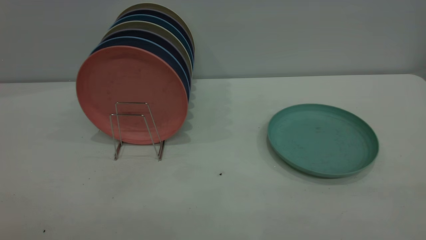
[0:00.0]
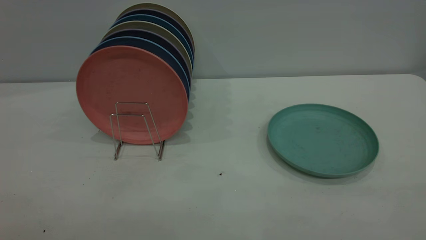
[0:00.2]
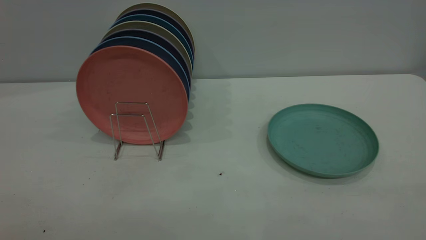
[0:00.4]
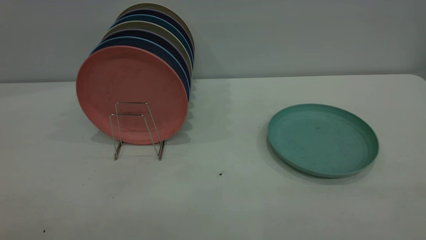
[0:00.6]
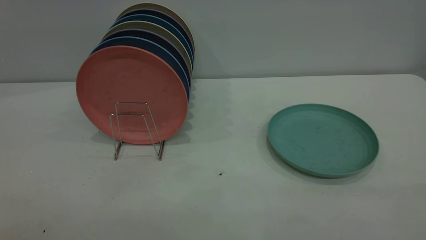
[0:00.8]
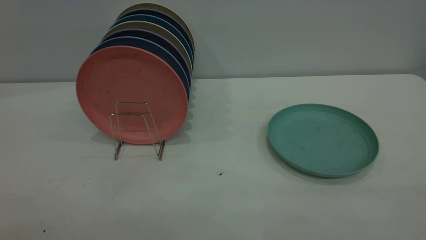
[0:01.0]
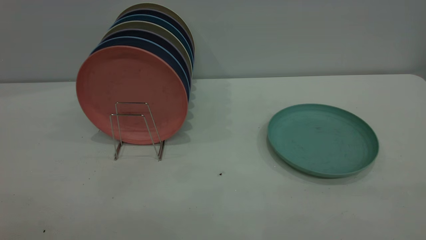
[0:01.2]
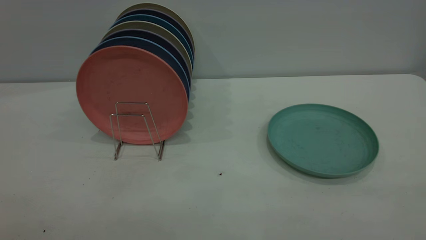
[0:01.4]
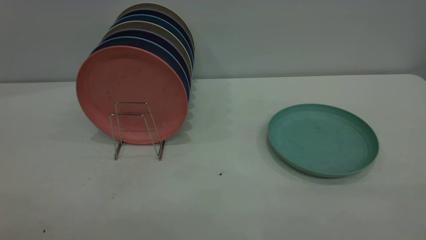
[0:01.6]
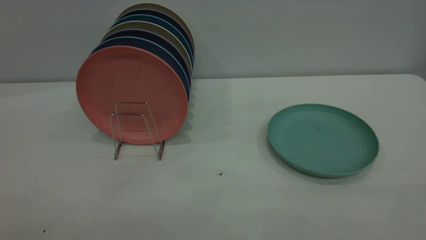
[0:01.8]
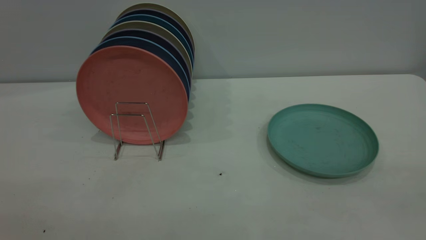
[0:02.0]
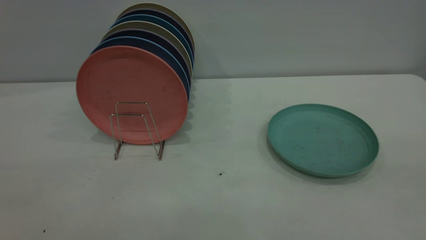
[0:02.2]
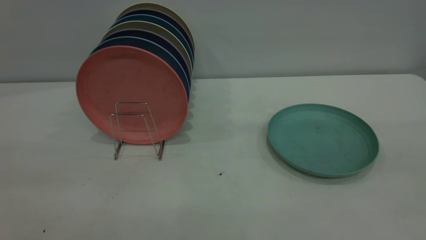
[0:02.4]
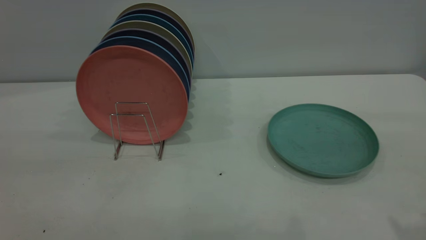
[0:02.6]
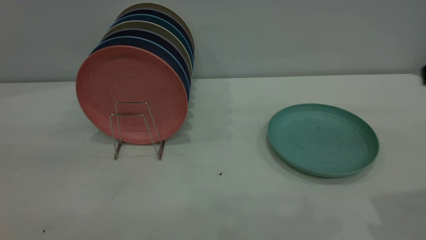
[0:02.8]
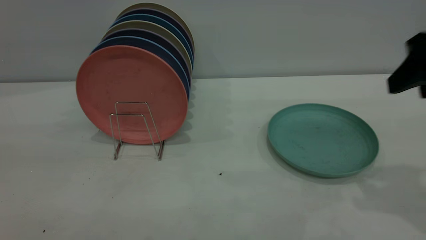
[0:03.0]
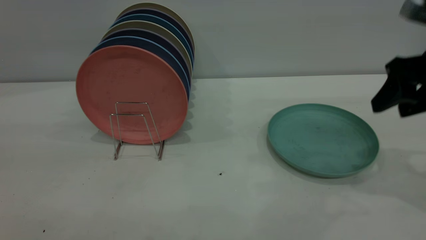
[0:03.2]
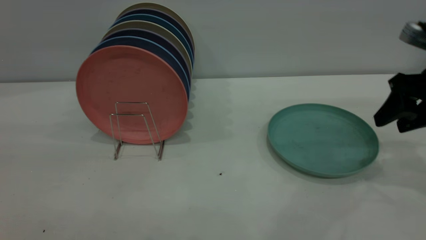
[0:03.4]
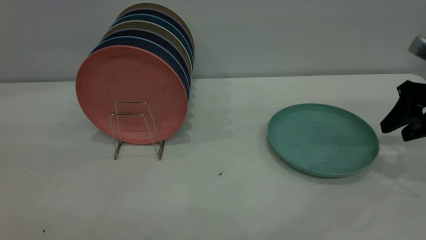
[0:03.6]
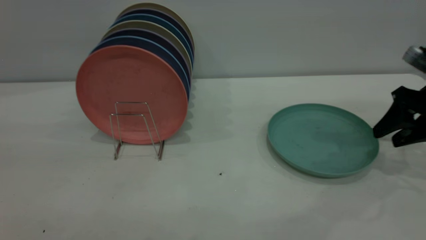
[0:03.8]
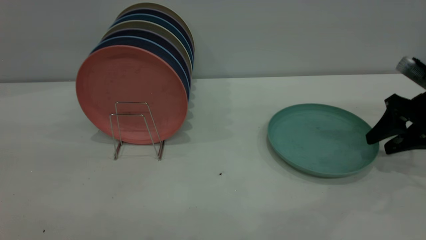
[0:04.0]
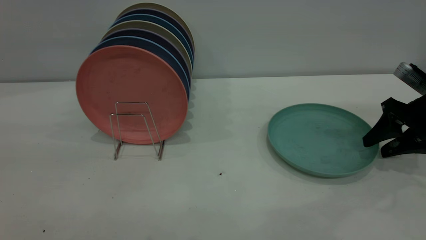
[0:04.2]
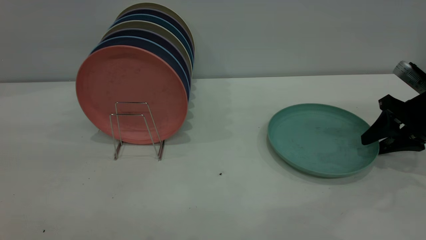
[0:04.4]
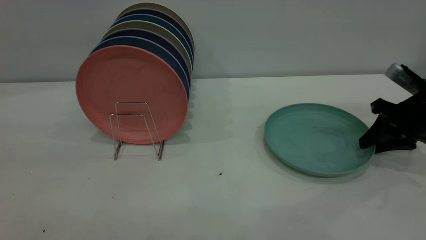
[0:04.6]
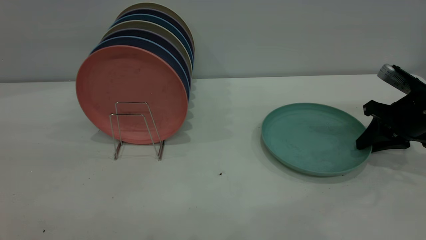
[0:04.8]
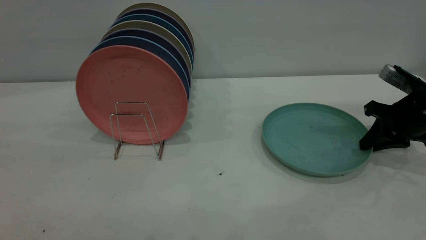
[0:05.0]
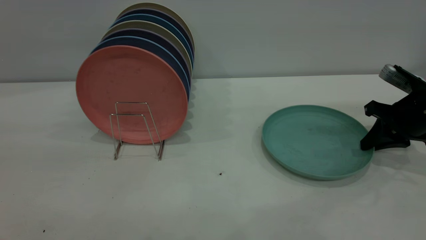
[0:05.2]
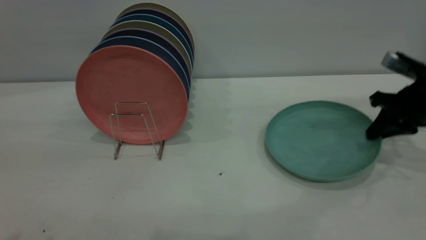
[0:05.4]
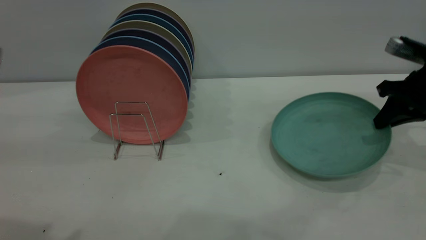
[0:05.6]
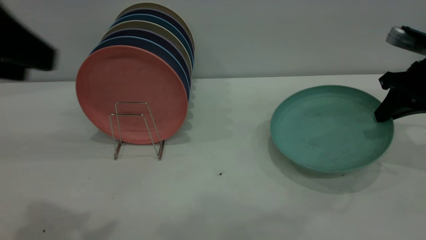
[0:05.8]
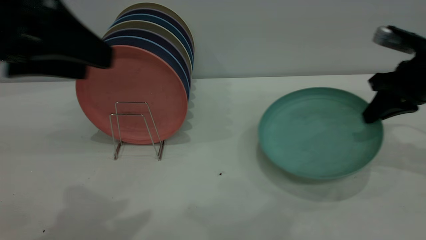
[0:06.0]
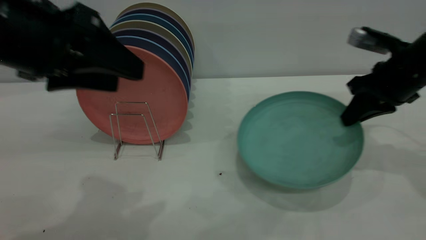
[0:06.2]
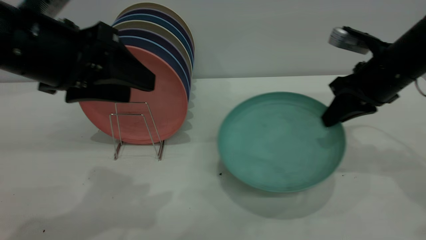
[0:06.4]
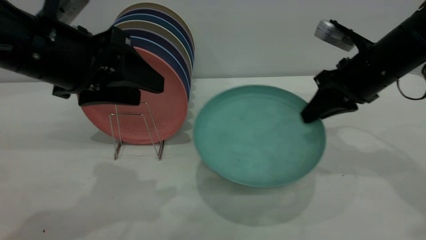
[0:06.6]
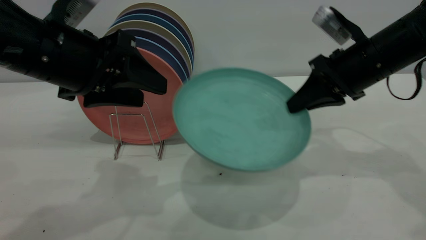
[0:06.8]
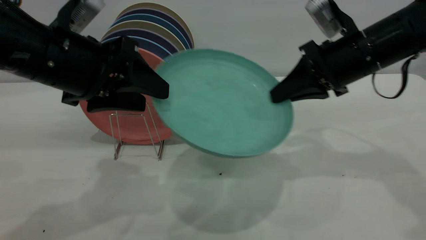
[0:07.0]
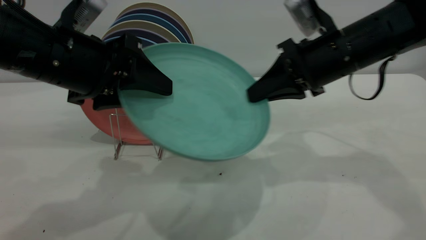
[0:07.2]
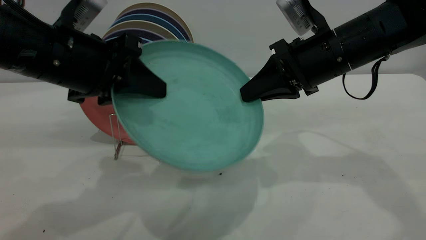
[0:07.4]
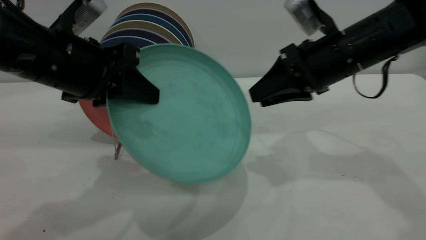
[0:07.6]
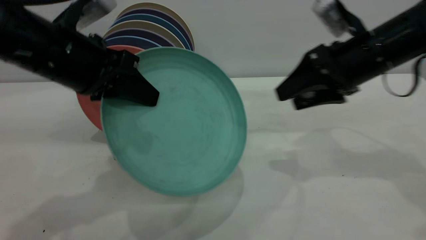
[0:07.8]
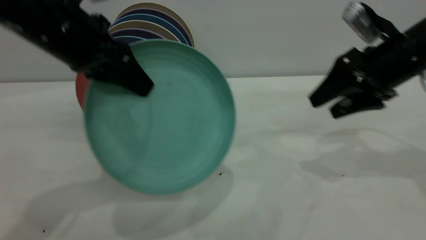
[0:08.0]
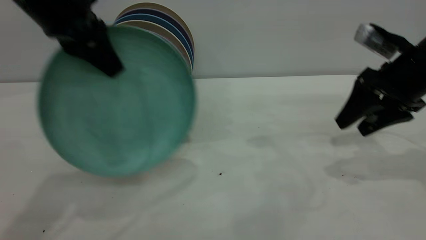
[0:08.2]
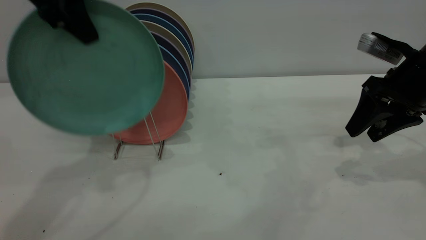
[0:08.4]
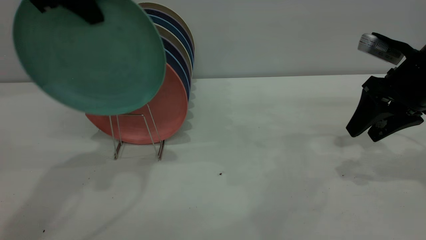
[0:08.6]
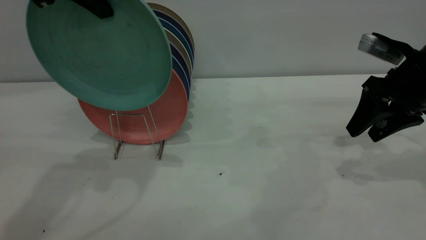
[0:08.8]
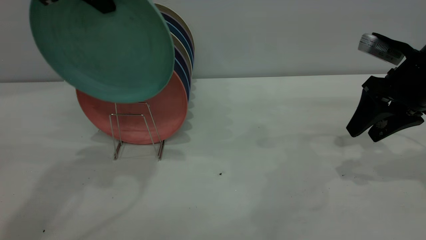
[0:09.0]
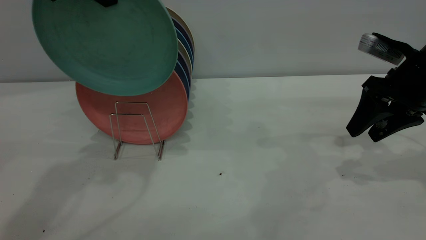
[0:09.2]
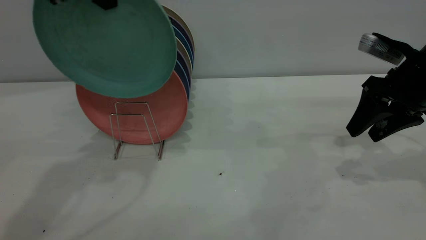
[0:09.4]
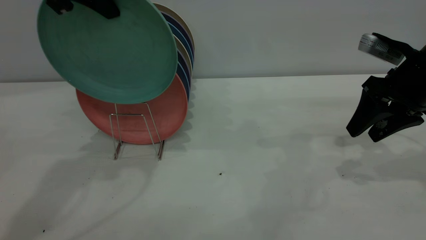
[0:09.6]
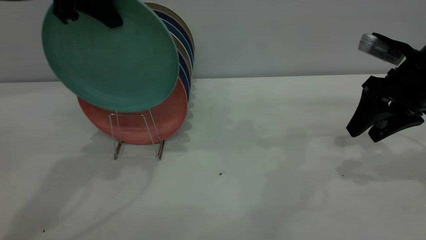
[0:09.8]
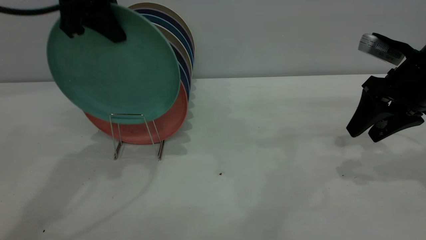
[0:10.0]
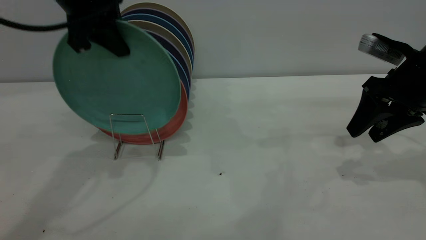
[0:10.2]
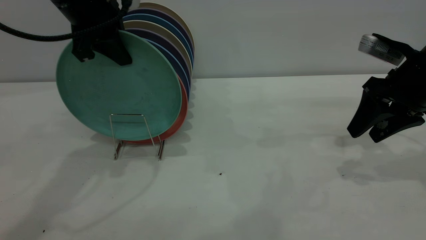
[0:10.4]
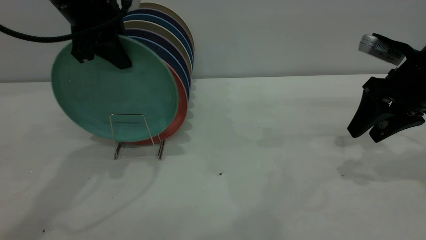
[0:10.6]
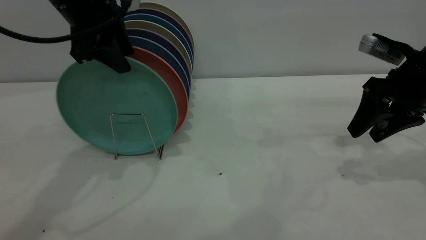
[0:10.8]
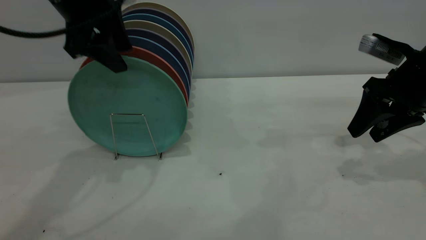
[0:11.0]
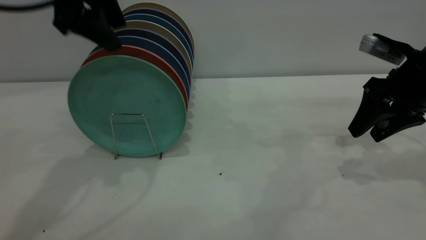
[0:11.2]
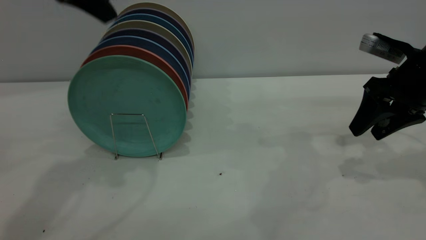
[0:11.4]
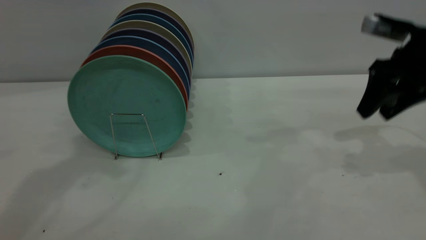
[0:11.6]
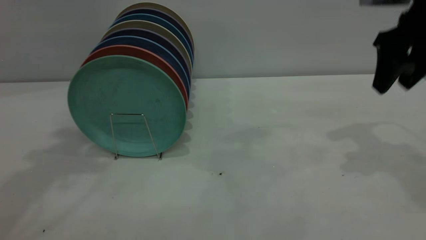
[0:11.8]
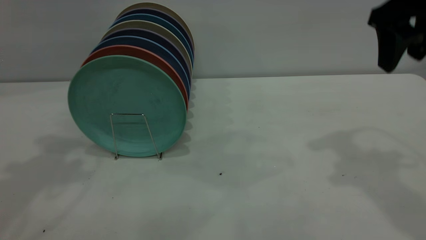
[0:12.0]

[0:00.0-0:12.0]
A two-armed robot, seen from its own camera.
Task of the whole recording: the right gripper grasp the green plate, the right gripper pass the green plate to the left gripper, and the left gripper place the green plate on the plate rack.
Step, 0:00.0 to 0:05.8: Pick up the plate with the right gripper.
Step, 0:06.0 to 0:07.6: Pass the plate from the right gripper to the left gripper.
Step, 0:07.8 to 0:11.2: Place the plate on the shelf.
0:00.0 to 0:01.6: Both grippers stay about where they are.
0:01.6 to 0:03.0: The right gripper goes roughly 30 cm forward.
0:03.0 to 0:04.4: The right gripper goes about 20 cm downward, forward and to the right.
0:04.4 to 0:06.0: The left gripper goes roughly 15 cm forward, to the right and downward. Meanwhile the right gripper shifts roughly 5 cm upward, and closes up.
0:06.0 to 0:07.6: The left gripper is displaced downward and forward by about 10 cm, and closes. The right gripper moves to the left, approximately 10 cm, and opens its fingers.
0:07.6 to 0:09.0: The left gripper goes about 15 cm upward and forward, while the right gripper is displaced to the right by some 10 cm.
0:09.0 to 0:10.4: The left gripper travels downward by roughly 10 cm.
0:10.4 to 0:12.0: The left gripper is displaced upward, to the left and backward by about 20 cm, and opens. Meanwhile the right gripper goes about 15 cm upward and to the left.

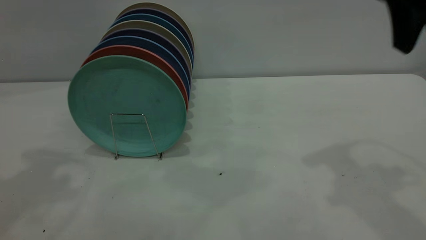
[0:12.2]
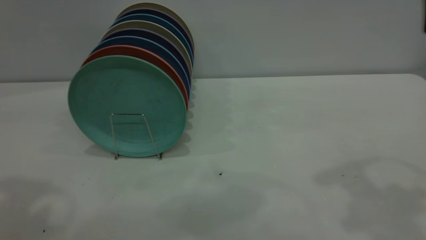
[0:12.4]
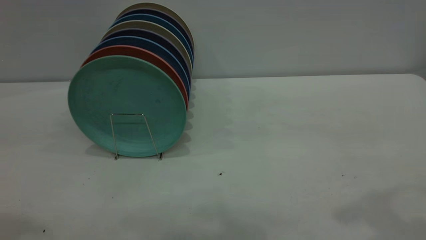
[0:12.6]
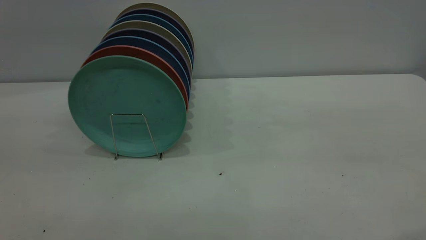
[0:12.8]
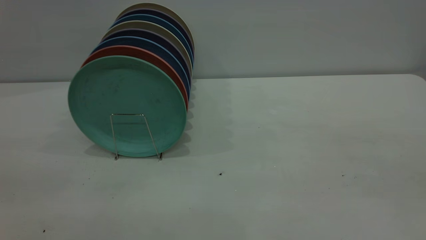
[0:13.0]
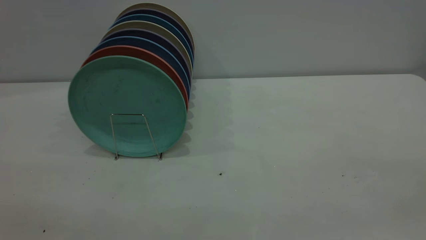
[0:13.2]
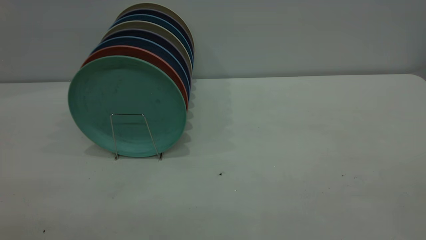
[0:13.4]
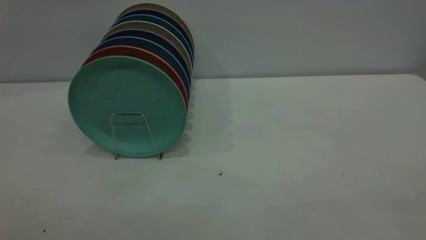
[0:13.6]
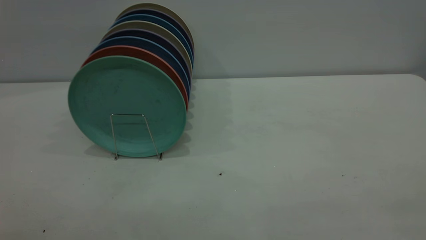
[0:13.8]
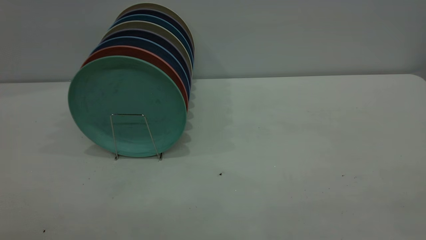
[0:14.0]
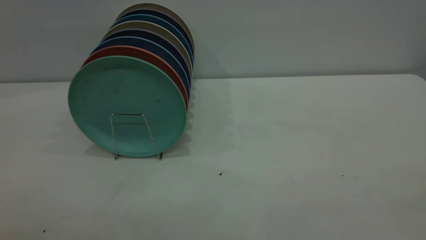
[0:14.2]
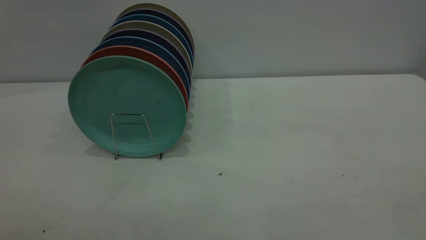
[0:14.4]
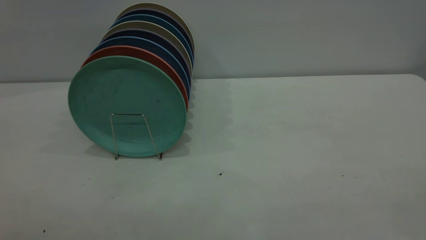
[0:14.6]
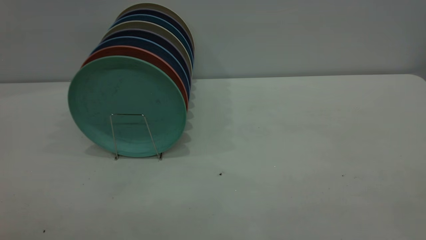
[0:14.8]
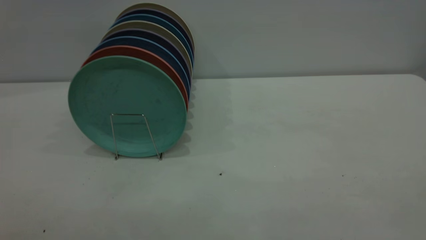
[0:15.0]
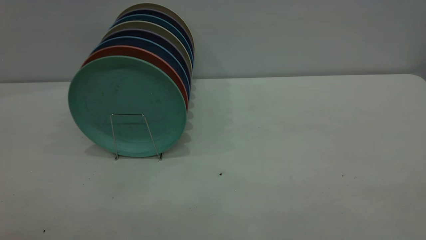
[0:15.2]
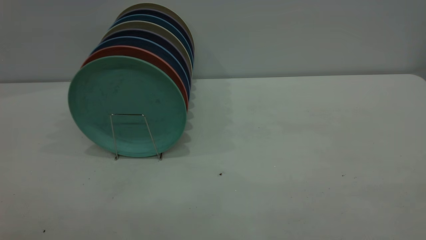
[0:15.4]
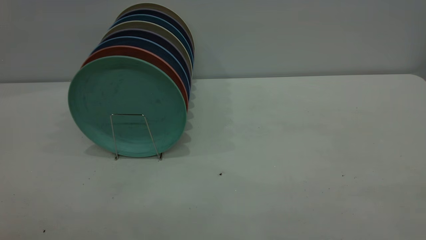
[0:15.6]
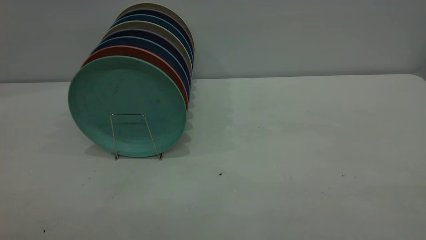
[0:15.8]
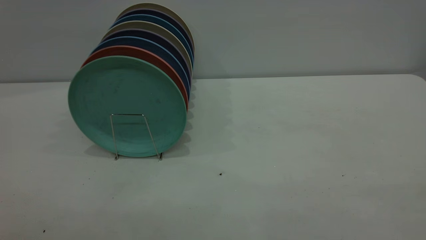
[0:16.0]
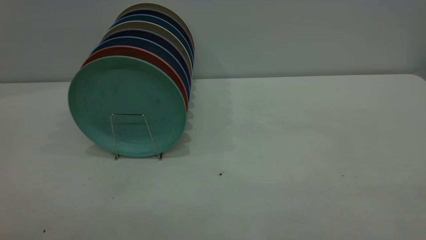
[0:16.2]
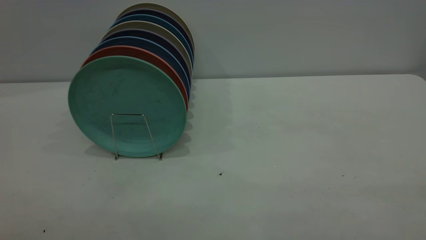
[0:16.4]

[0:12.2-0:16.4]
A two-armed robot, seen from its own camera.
Task of the whole recording: the right gripper grasp the green plate, the right gripper pass the green plate to the left gripper, and the left gripper place the green plate on the plate rack.
0:12.2 to 0:13.6: The right gripper heads backward, covering some 30 cm.
